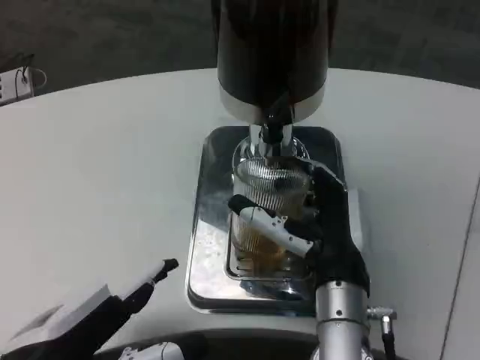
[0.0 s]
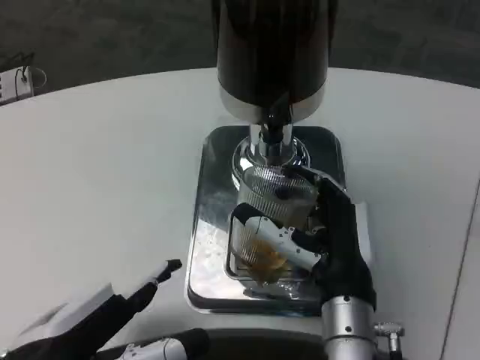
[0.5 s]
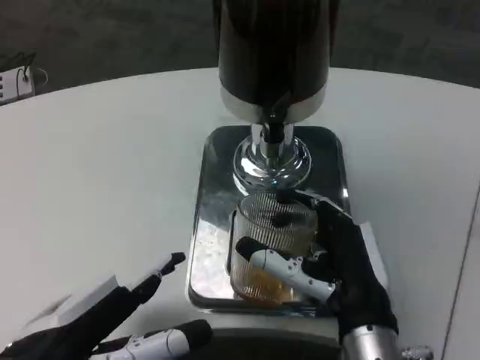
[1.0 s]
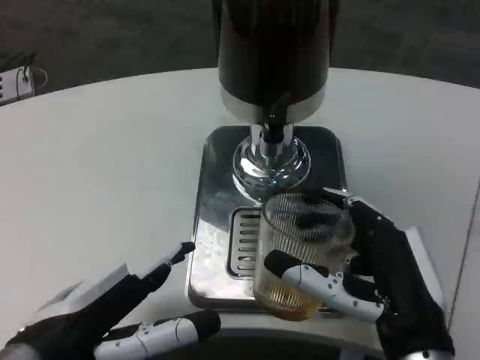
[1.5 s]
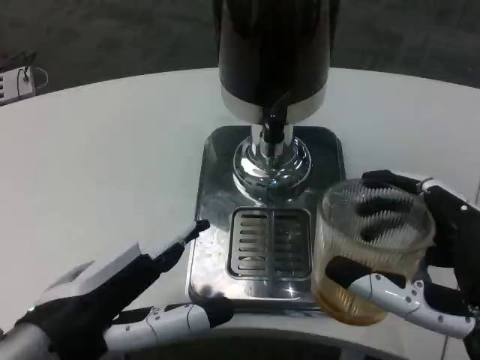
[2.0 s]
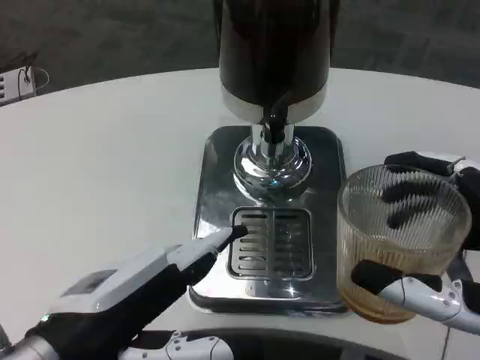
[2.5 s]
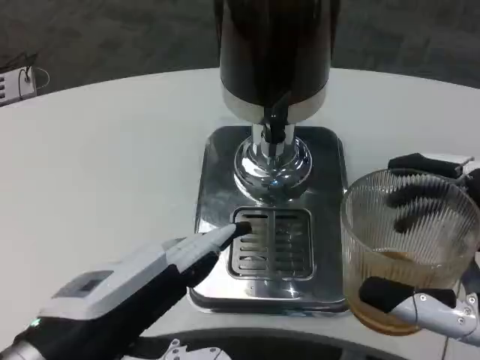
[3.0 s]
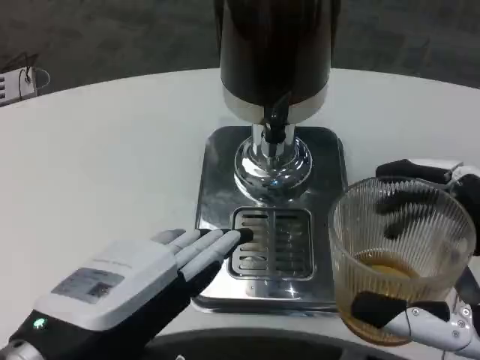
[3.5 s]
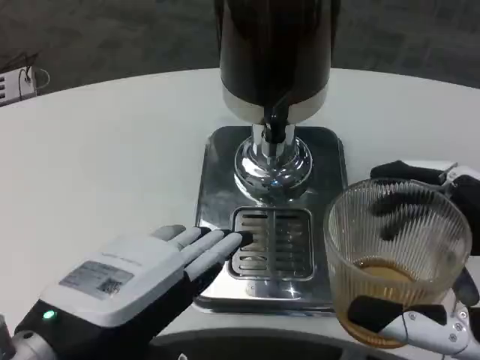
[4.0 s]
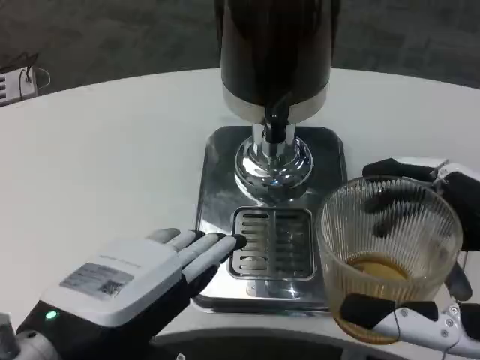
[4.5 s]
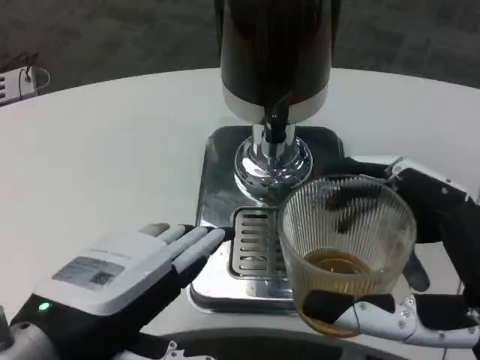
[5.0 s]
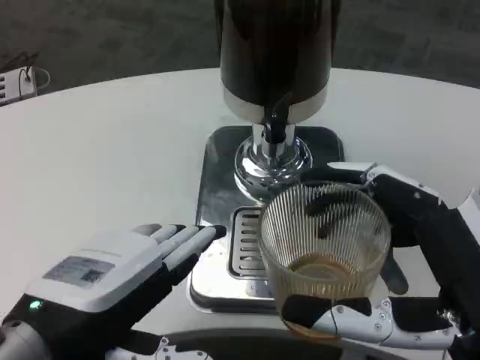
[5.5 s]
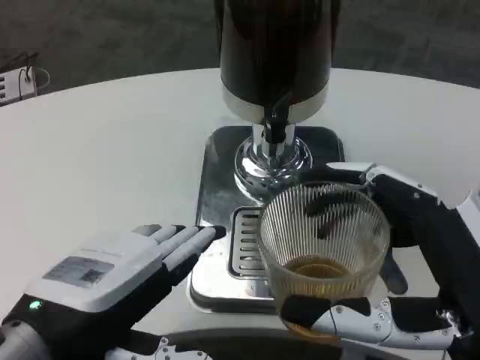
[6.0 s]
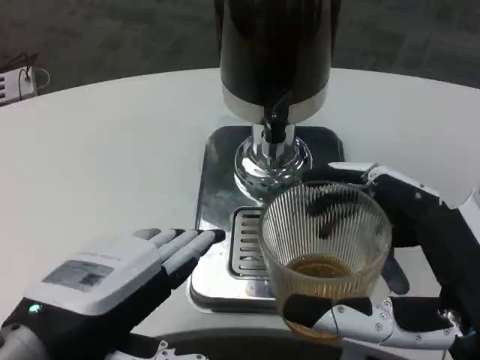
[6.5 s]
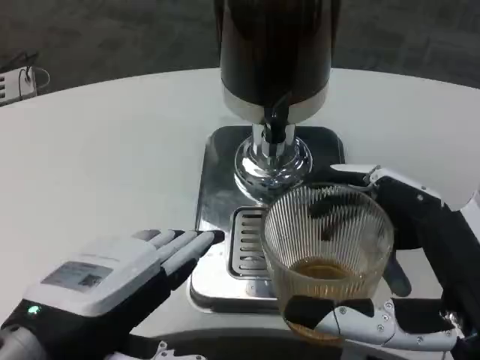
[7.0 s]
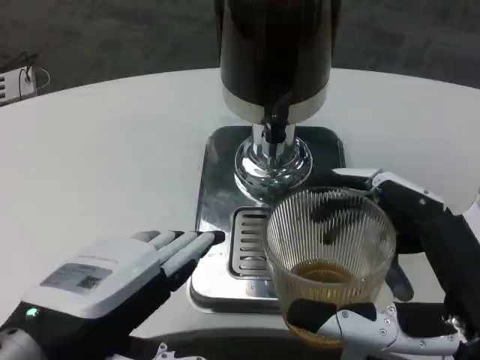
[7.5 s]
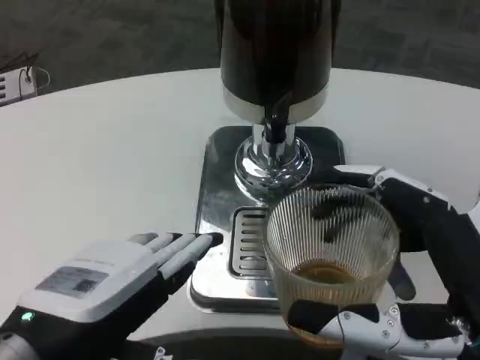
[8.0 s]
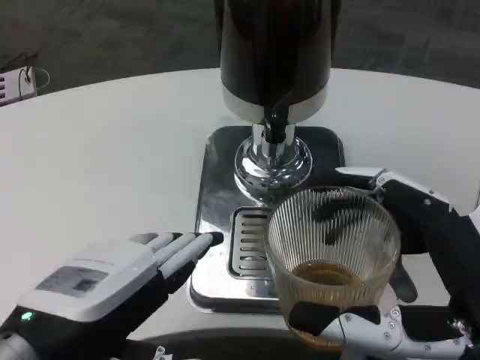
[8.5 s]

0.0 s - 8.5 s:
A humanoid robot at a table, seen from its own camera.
Task of the whole recording: Grasp the cup under the faucet to collect the drink, then remove the cup.
0.0 s - 2.0 s: The right hand is displaced backward and to the right by roughly 15 cm.
2.0 s - 4.0 s: The left hand ends up approximately 5 cm from where it was.
6.5 s - 8.5 s: The two hands keep their place.

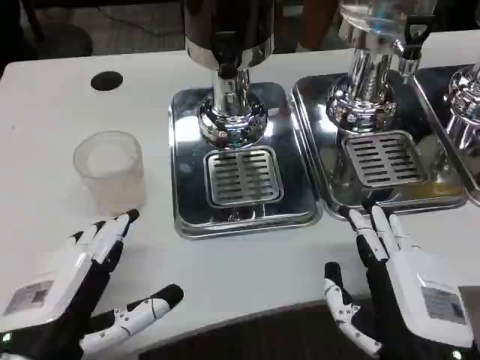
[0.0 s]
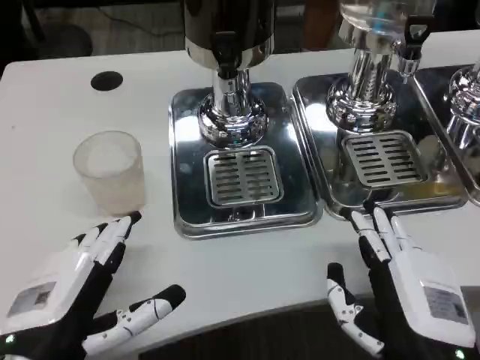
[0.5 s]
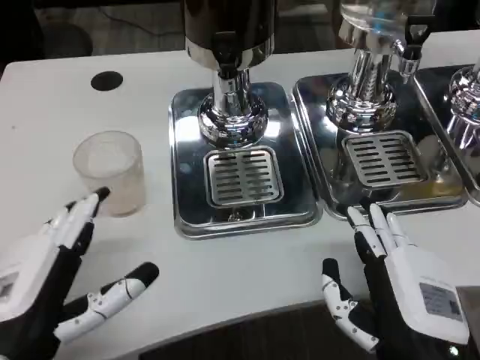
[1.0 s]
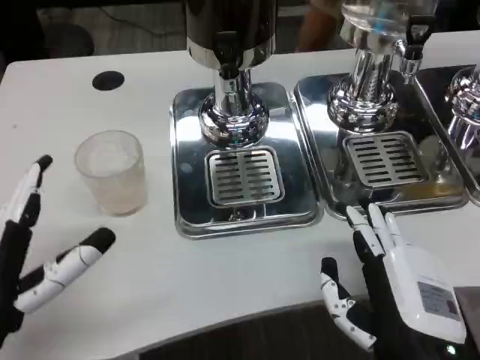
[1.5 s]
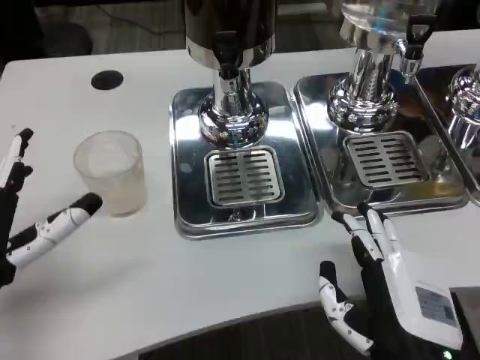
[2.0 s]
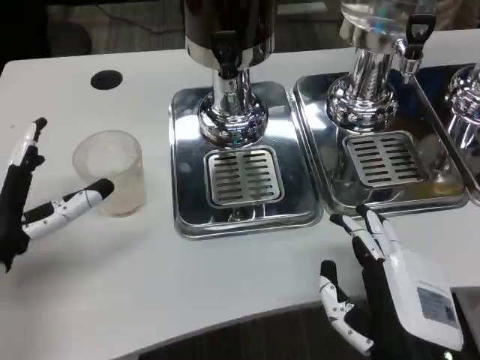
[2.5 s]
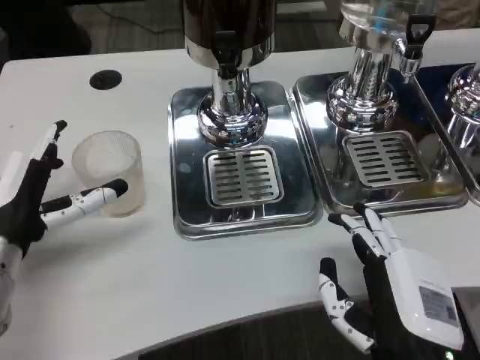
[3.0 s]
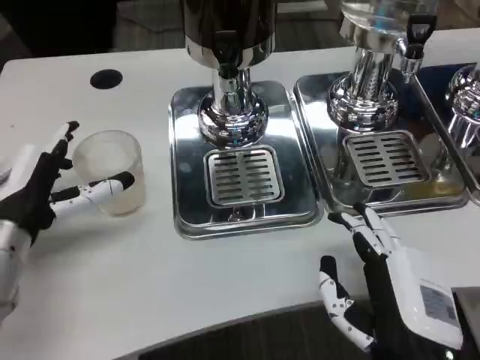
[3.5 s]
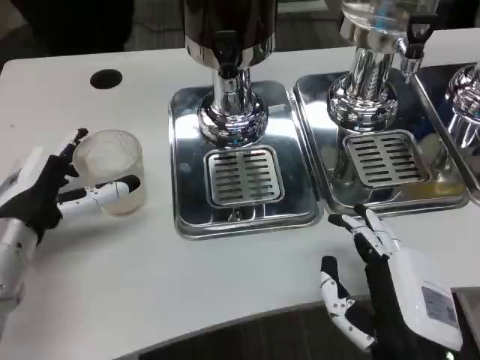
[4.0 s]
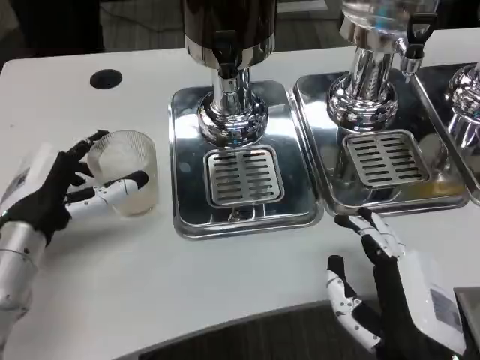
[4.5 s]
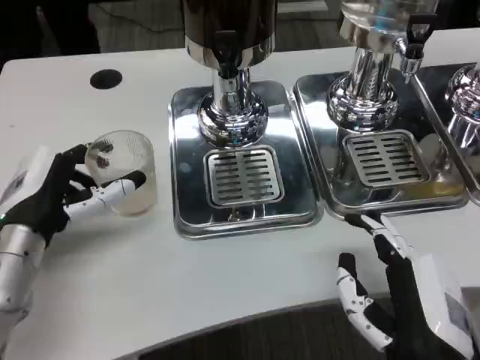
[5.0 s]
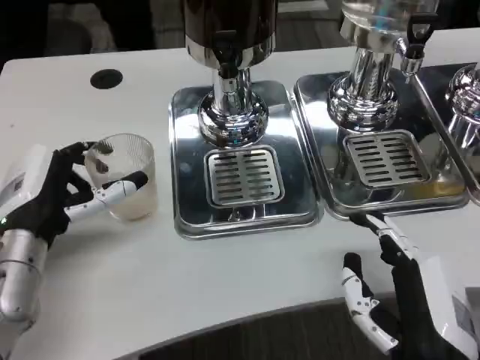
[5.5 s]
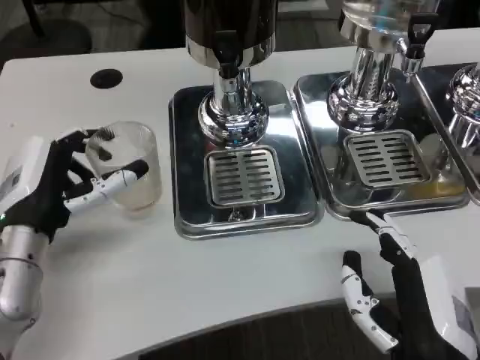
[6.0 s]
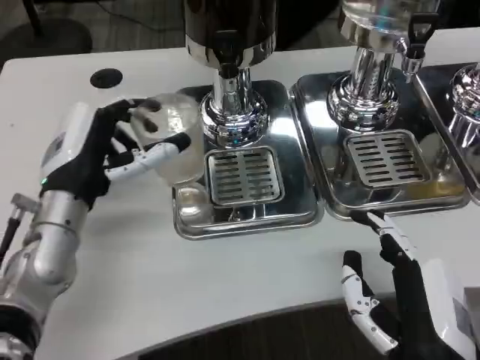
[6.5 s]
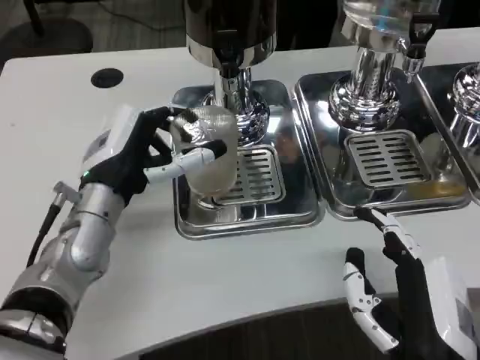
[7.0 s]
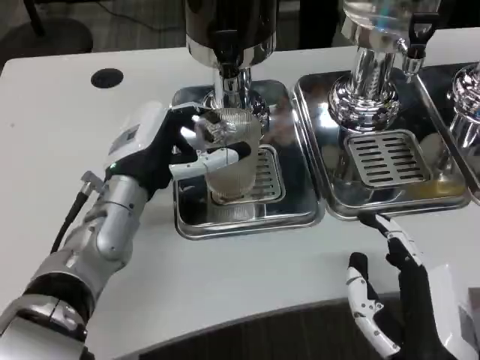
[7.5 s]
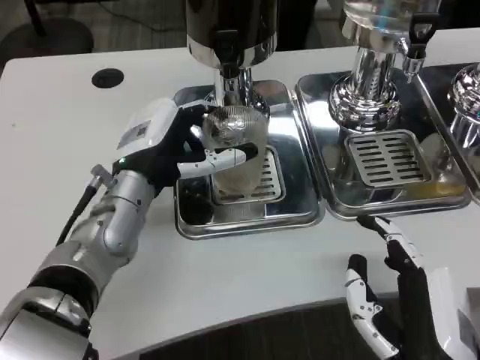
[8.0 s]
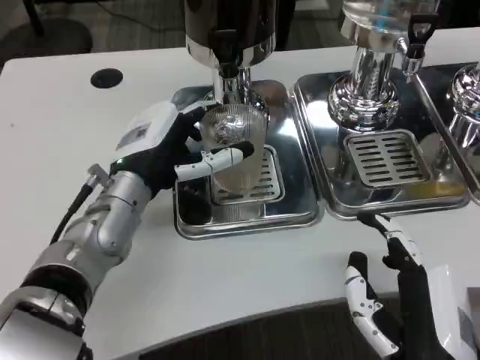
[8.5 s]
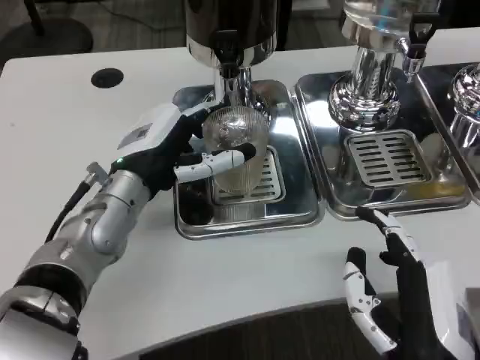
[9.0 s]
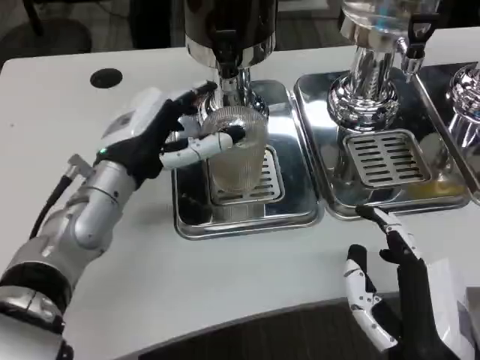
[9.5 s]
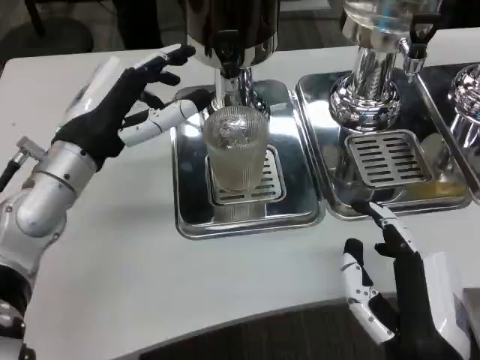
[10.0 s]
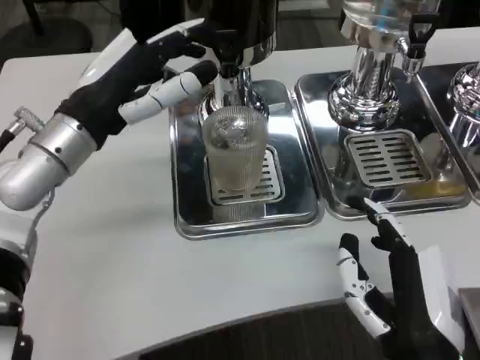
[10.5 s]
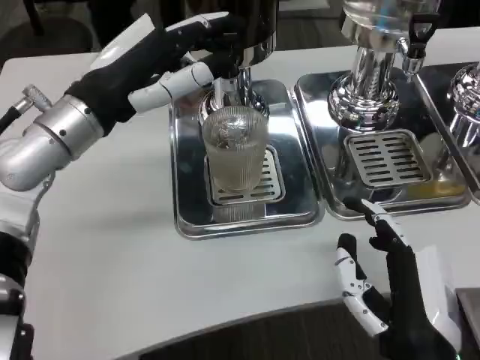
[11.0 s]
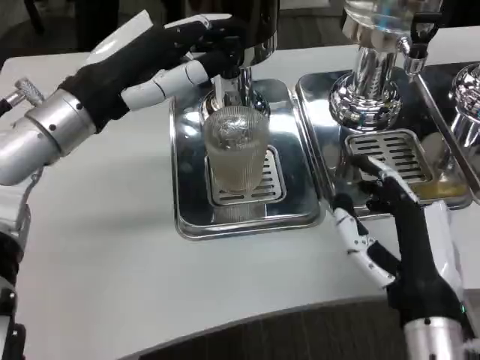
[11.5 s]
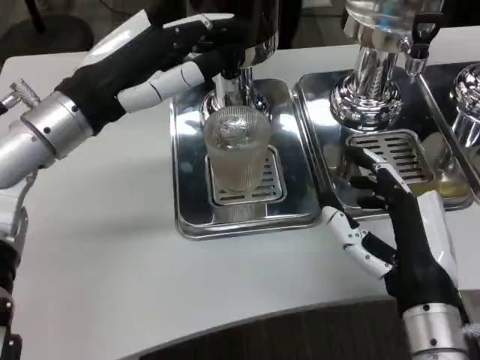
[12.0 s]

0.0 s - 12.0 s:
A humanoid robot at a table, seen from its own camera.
Task of the whole recording: Grasp the cup under the faucet to collect the drink, then remove the cup.
0.0 s - 2.0 s: The left hand goes about 5 cm forward.
2.0 s - 4.0 s: The left hand is displaced forward by some 10 cm.
6.0 s - 8.0 s: The left hand goes about 10 cm to the right and forward.
8.0 s - 10.0 s: The left hand shifts about 5 cm to the left.
10.0 s - 12.0 s: The right hand moves forward, roughly 5 cm, while the left hand travels upward by roughly 5 cm.

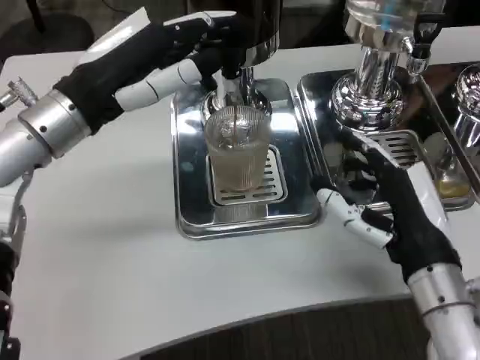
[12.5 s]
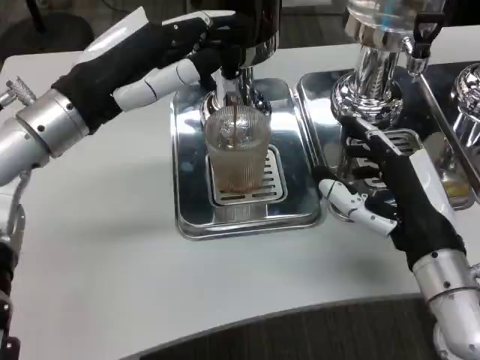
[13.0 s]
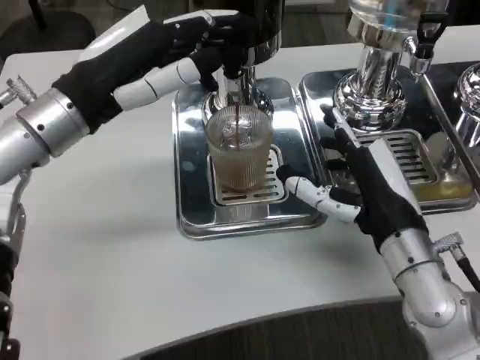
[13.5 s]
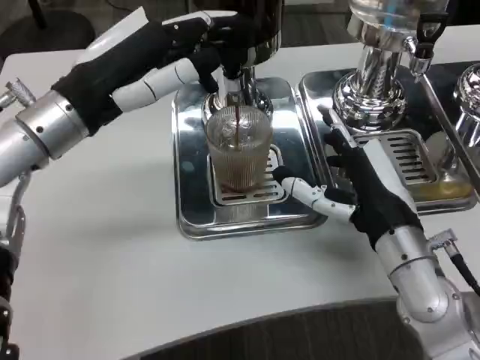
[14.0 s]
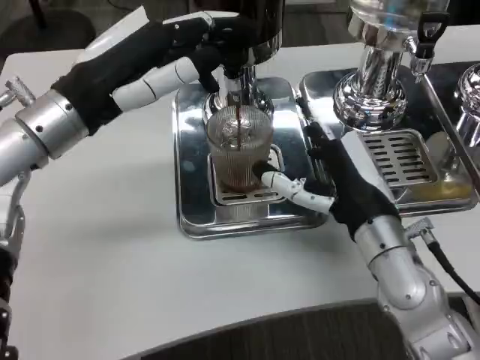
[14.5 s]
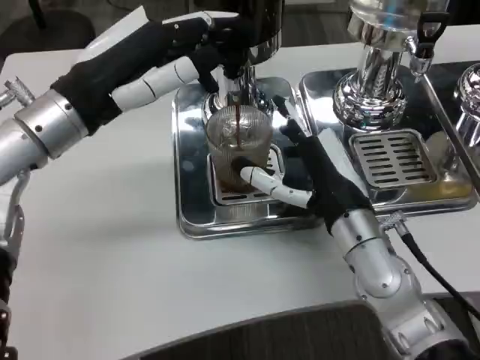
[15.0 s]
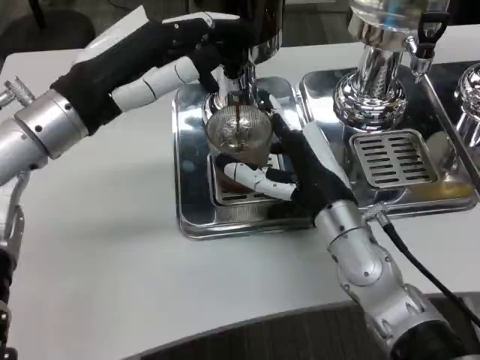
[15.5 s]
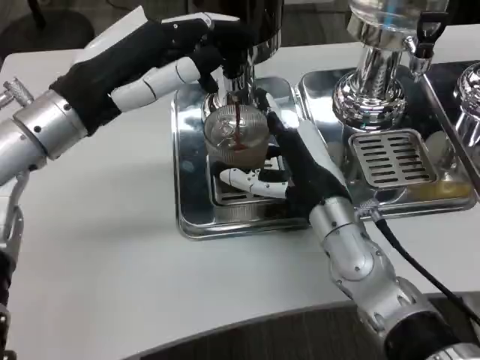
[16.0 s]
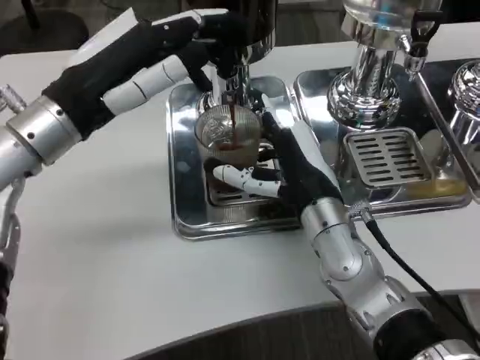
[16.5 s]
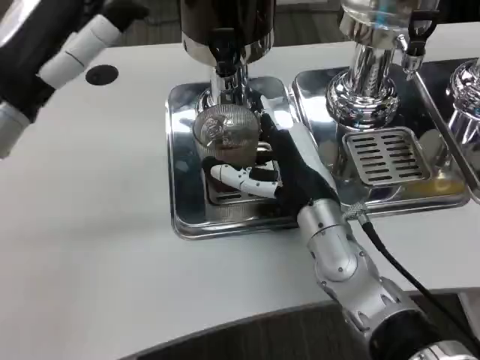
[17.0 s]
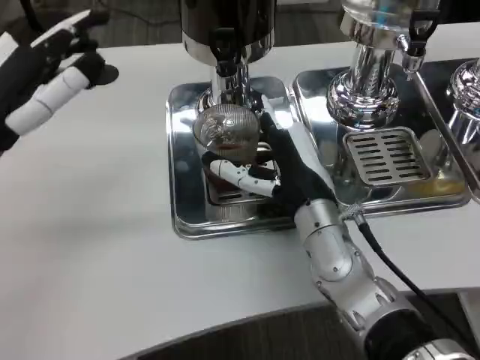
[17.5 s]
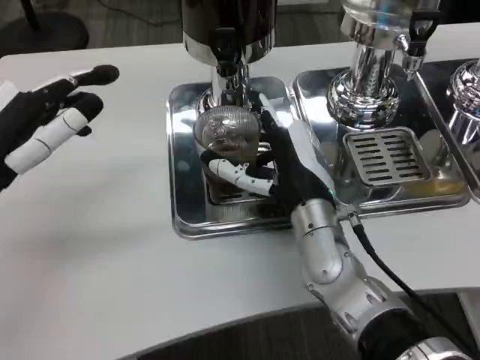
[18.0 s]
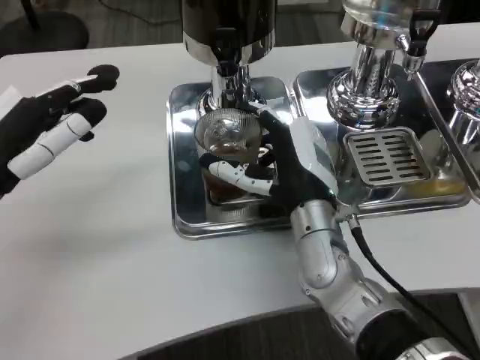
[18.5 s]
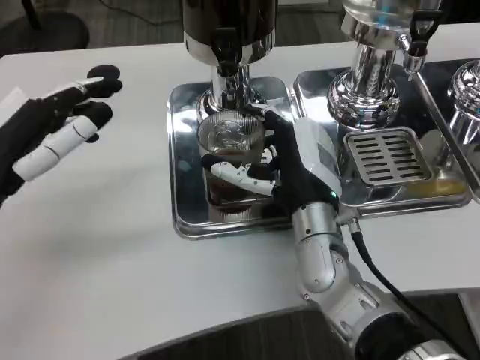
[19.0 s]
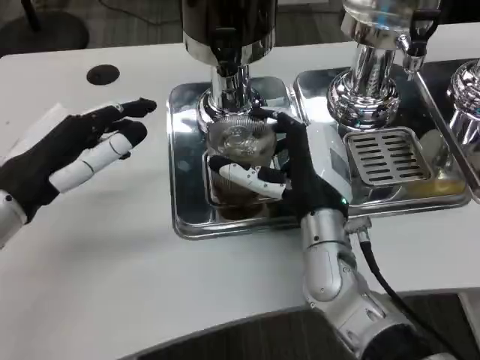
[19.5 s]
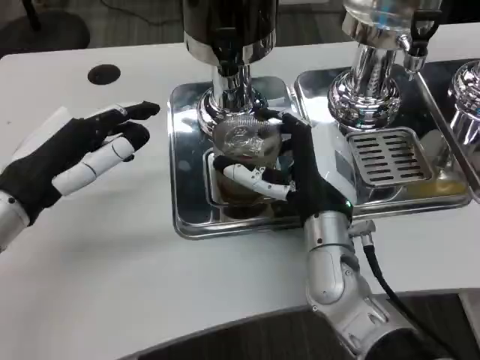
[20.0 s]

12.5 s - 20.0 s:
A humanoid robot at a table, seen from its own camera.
Task of the whole recording: Grasp the cup under the faucet to collect the drink, then remove the cup.
12.5 s - 14.5 s: The right hand moves forward, roughly 5 cm.
14.5 s - 16.5 s: The right hand heads to the left, covering approximately 5 cm.
16.5 s - 18.0 s: The left hand moves to the left and backward, some 10 cm.
